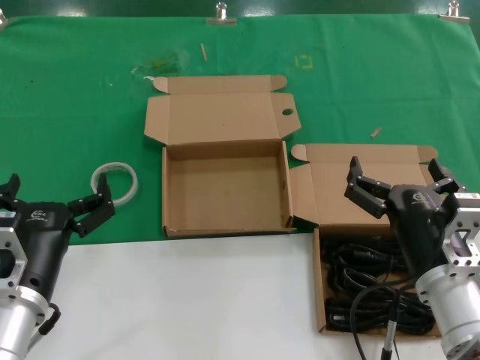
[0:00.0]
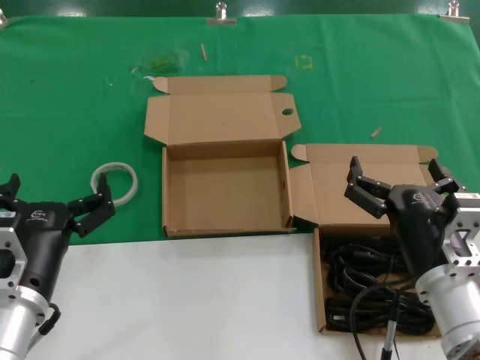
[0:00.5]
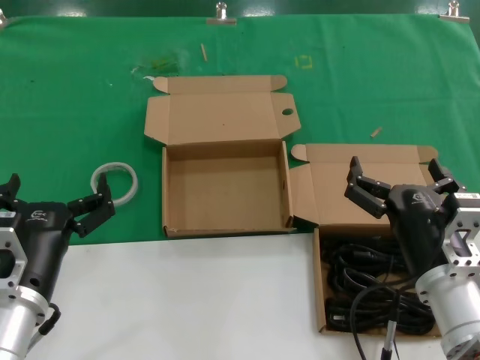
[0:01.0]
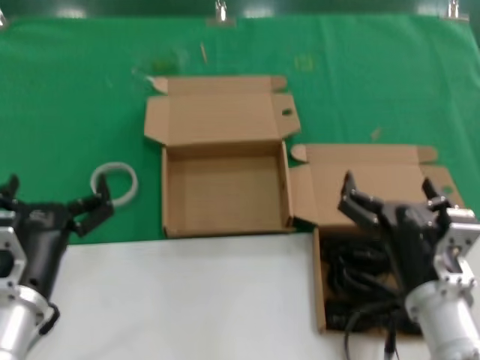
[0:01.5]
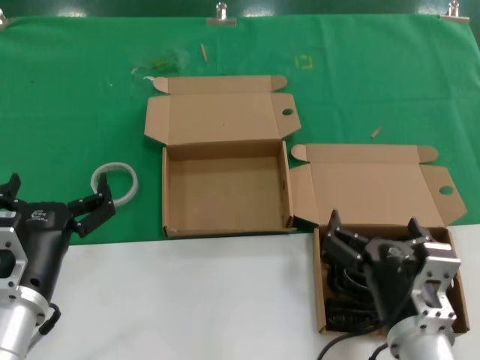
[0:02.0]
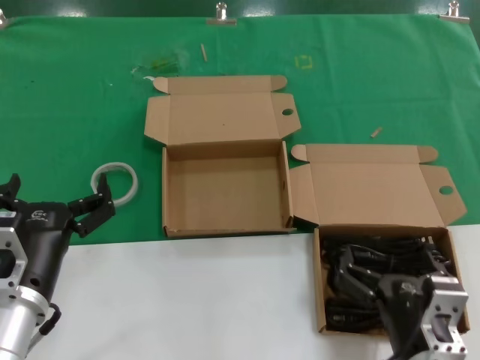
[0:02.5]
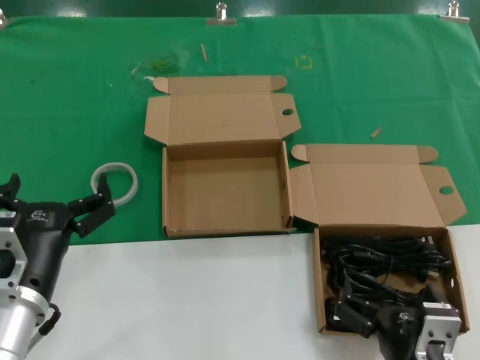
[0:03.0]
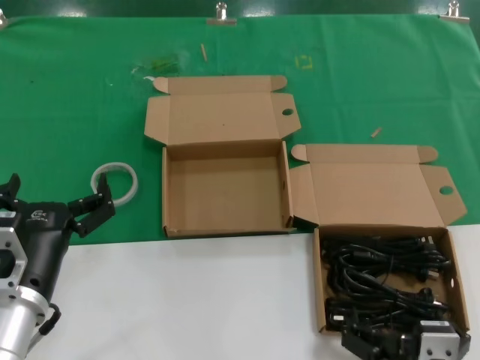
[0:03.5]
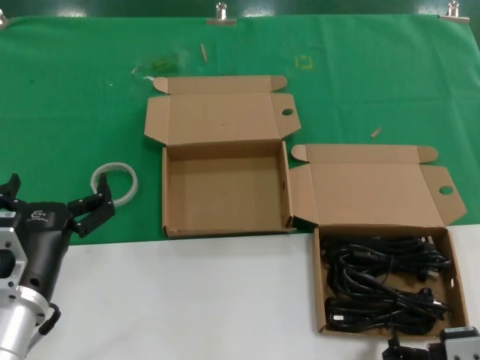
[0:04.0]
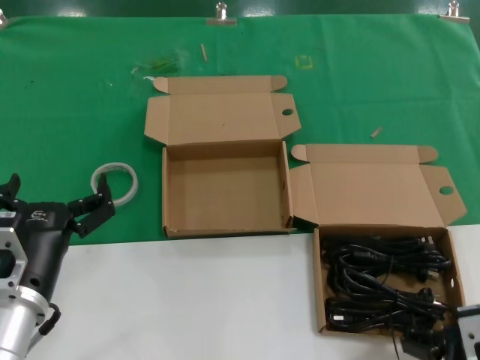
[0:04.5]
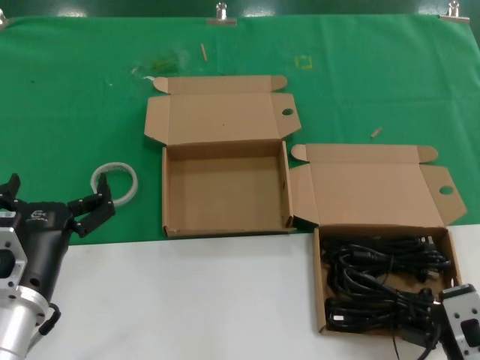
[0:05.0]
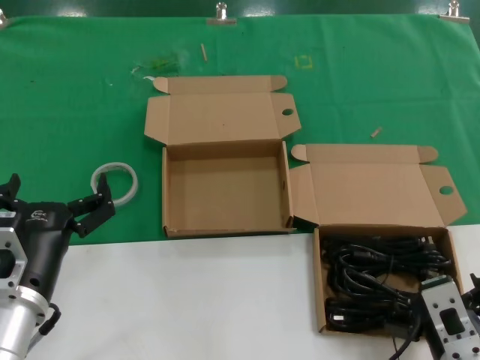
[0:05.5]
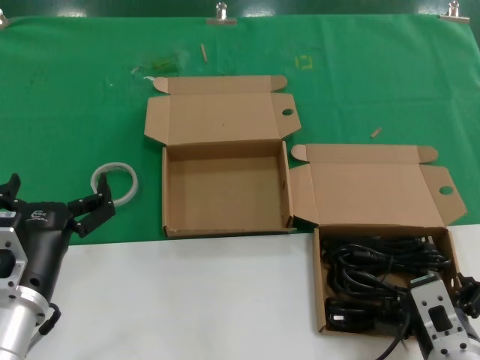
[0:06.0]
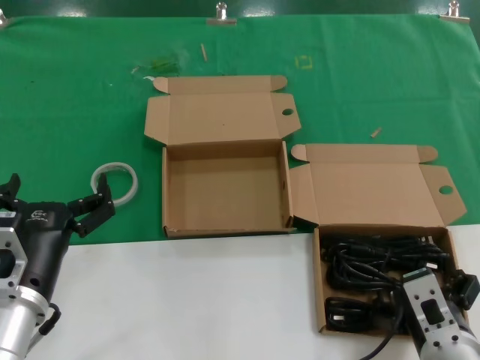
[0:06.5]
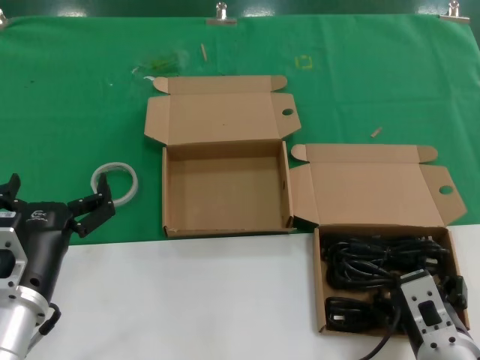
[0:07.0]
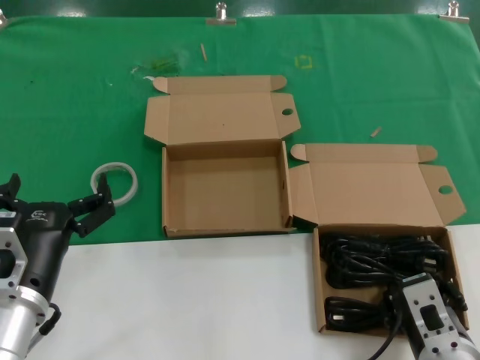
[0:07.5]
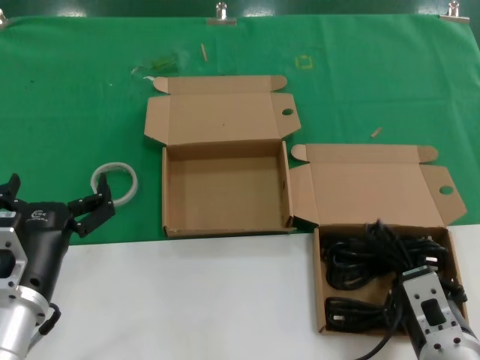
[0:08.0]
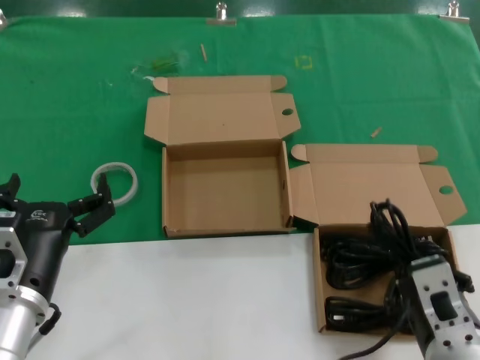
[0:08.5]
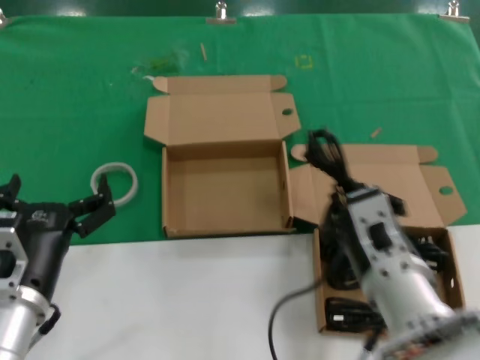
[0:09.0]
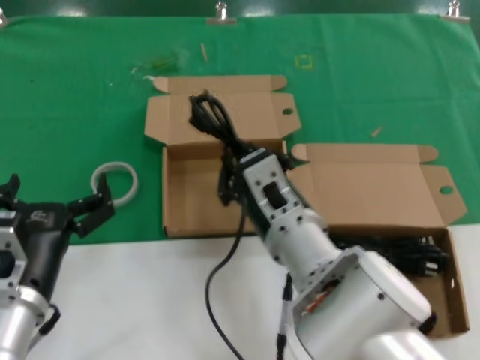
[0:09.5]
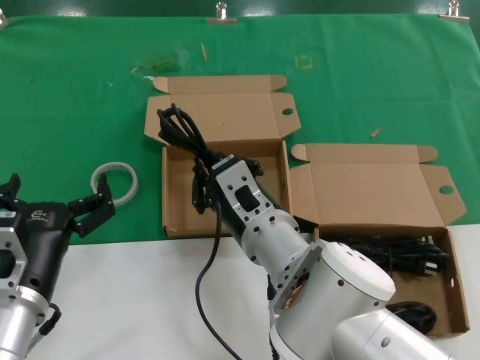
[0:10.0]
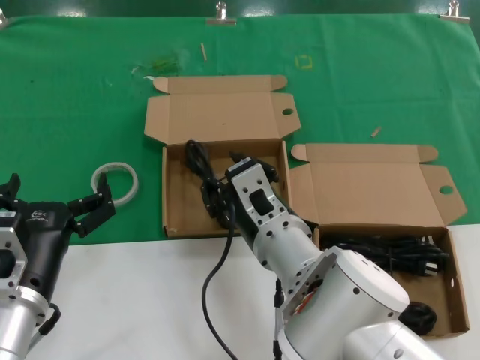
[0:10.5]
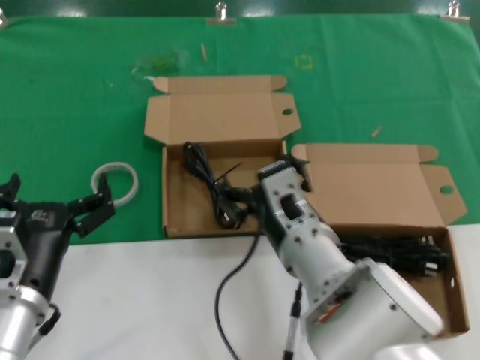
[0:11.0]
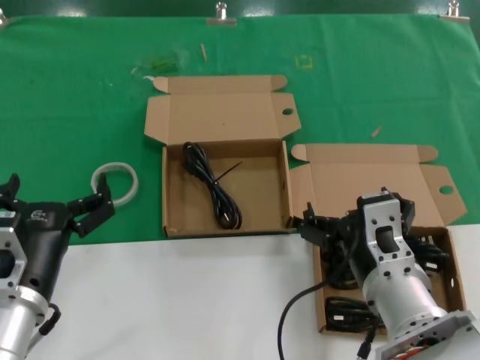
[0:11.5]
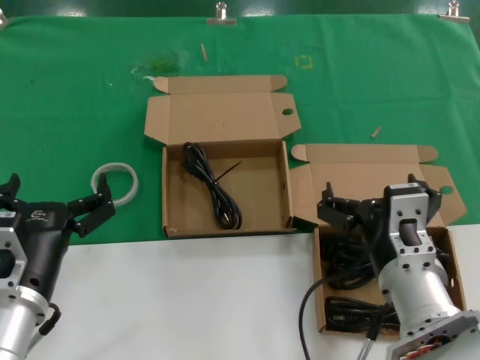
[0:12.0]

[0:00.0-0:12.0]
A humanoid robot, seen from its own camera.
Task of the whole recording: take the parts from the box containing them and put them into an empty box.
Step, 0:00.0 to 0:07.5: Grasp the data cable.
Step, 0:08.0 to 0:10.0: Place the data cable in the another box.
0:00.0 to 0:02.0: The right hand shifts by roughly 5 cm.
0:02.0 to 0:04.0: The right hand heads backward, covering approximately 10 cm.
0:04.0 to 0:06.0: The right hand travels forward by approximately 10 cm.
0:06.0 to 0:08.0: There are only small adjustments of the hands.
0:08.0 to 0:10.0: The right hand travels to the left and forward by roughly 20 cm.
0:10.0 to 0:12.0: The right hand shifts some 15 cm to the right and backward.

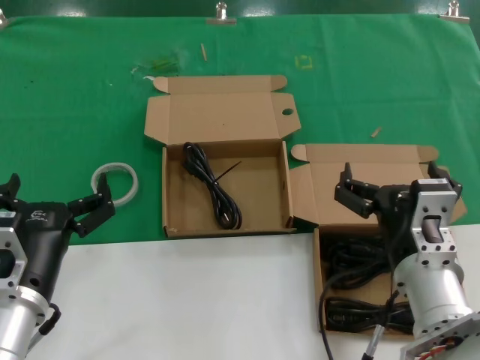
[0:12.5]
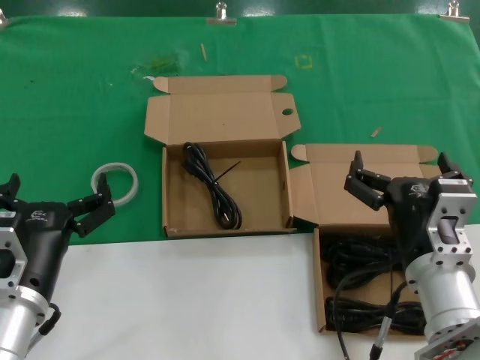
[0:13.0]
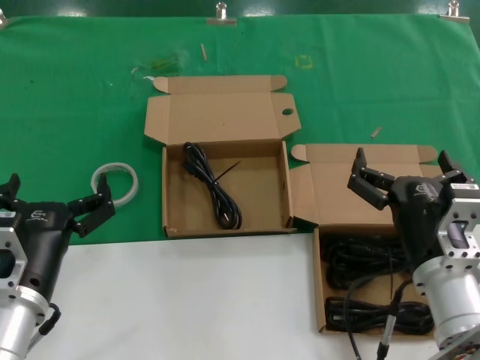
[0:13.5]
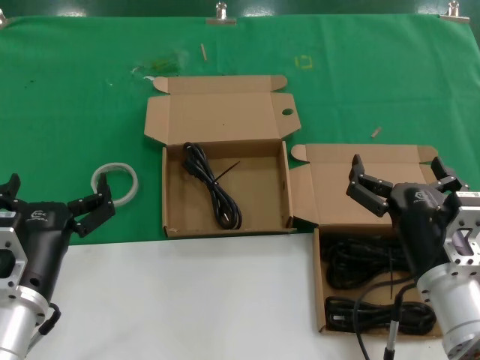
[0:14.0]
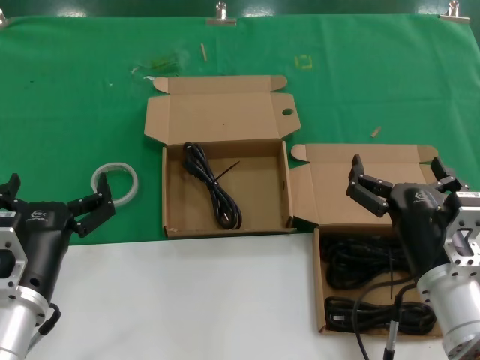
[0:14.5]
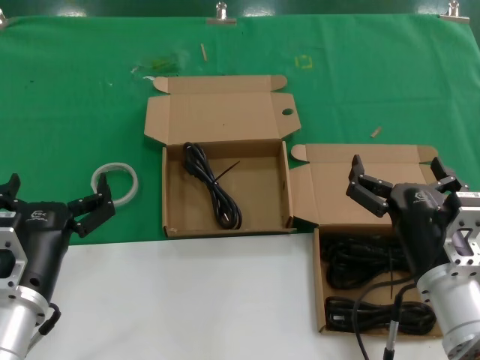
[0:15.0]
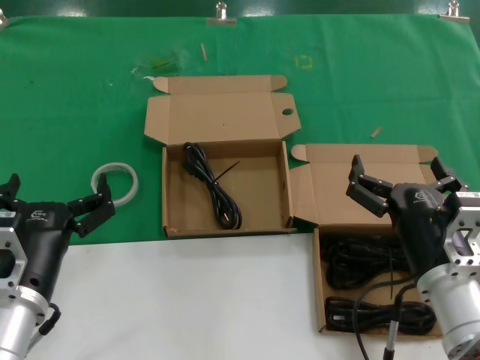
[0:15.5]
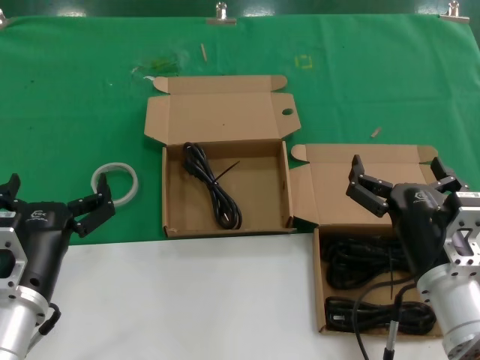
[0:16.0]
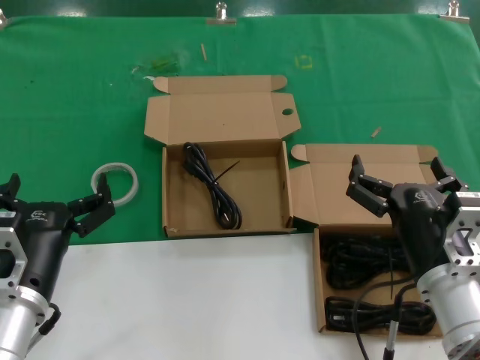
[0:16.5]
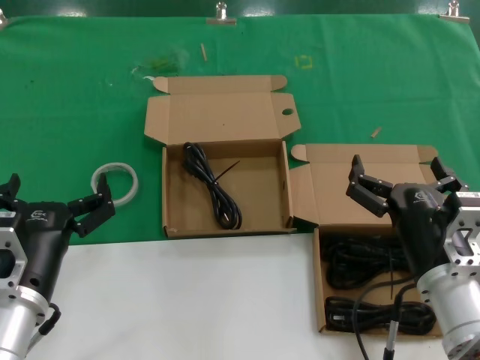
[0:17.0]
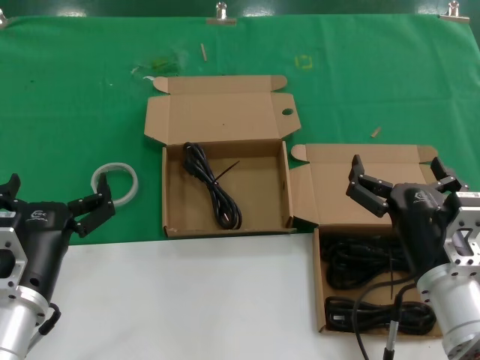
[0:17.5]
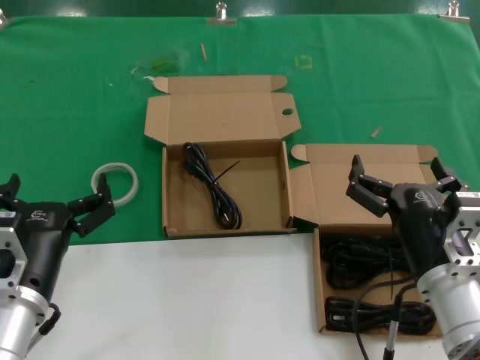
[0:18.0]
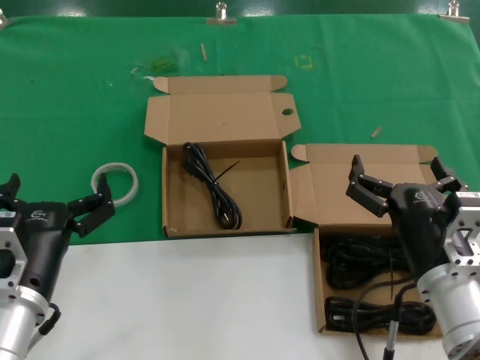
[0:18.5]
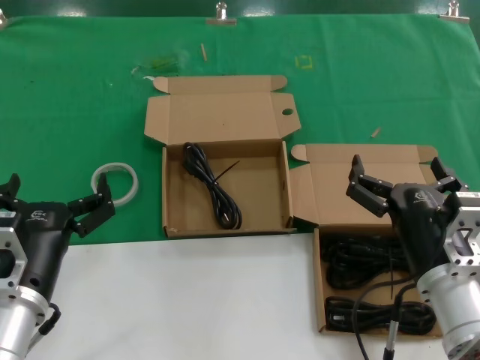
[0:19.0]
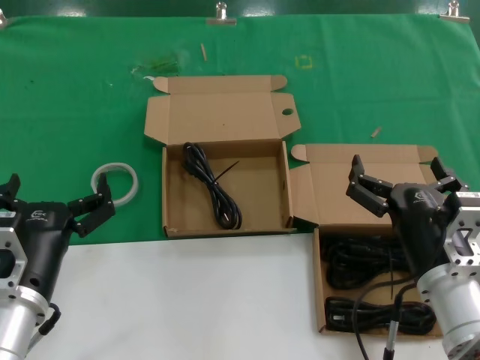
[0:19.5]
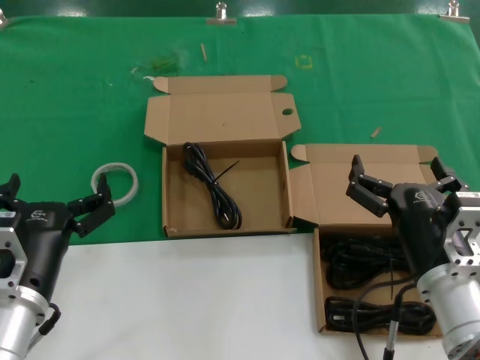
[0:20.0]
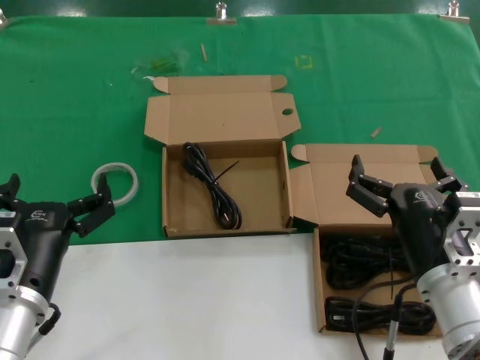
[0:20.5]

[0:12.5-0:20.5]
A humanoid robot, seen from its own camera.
Task of the whole recording: take the parts from the box containing them and put them into an empty box.
0:12.5 to 0:14.5: The hands move only a little.
0:14.5 to 0:20.5: The two hands keep their place.
